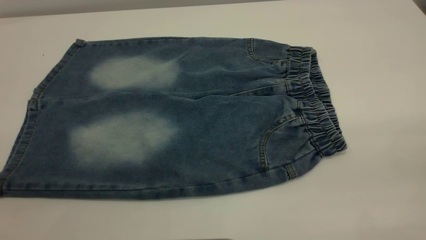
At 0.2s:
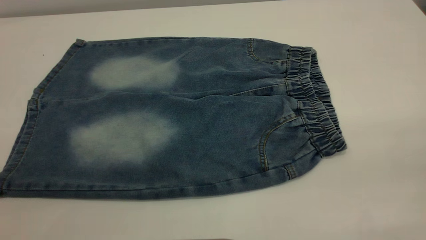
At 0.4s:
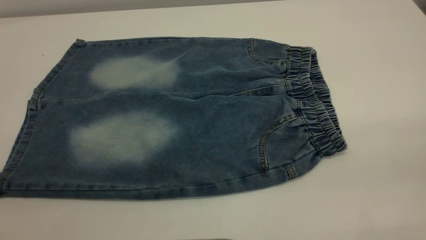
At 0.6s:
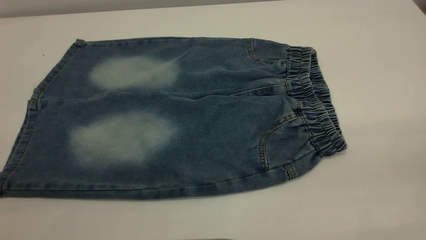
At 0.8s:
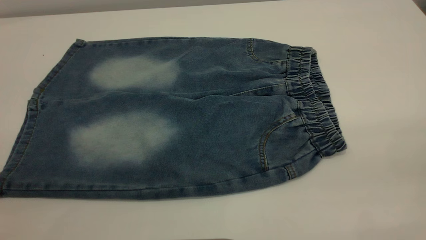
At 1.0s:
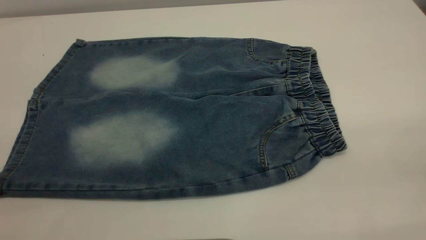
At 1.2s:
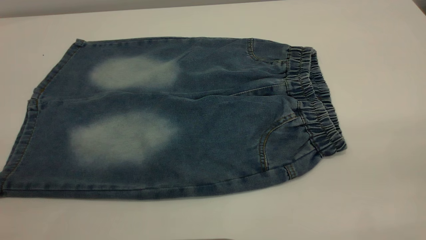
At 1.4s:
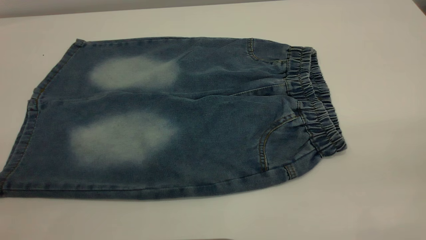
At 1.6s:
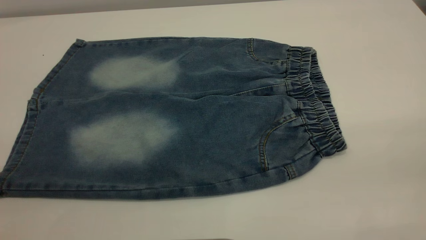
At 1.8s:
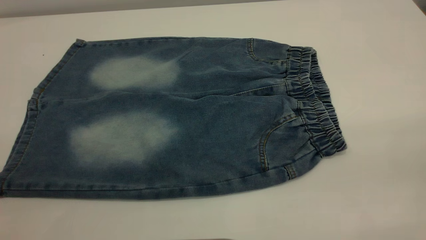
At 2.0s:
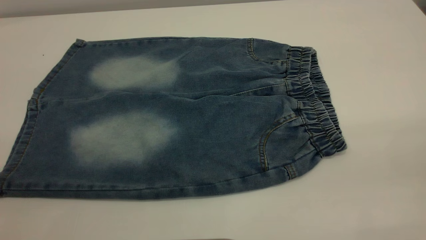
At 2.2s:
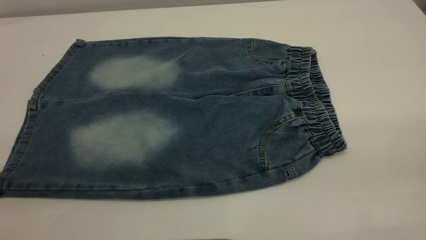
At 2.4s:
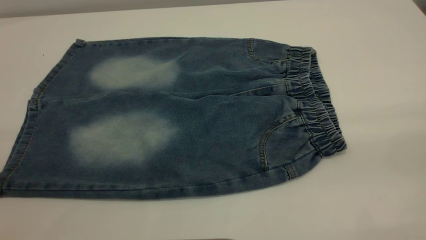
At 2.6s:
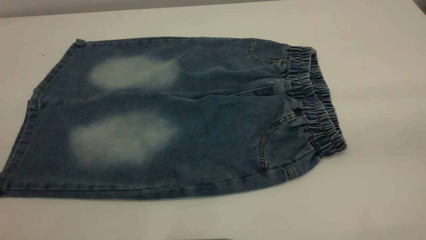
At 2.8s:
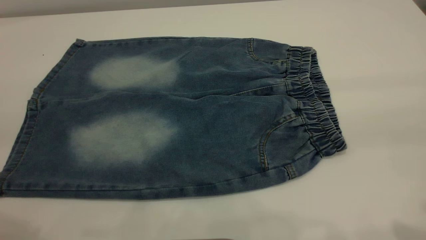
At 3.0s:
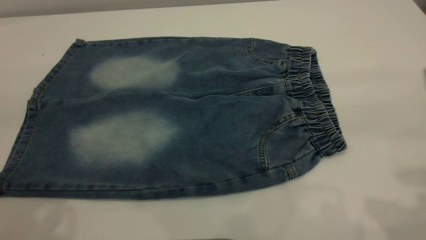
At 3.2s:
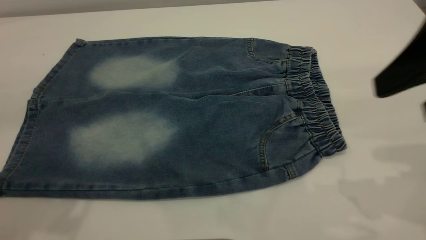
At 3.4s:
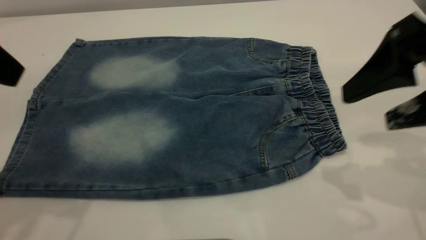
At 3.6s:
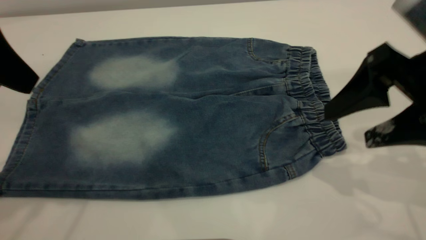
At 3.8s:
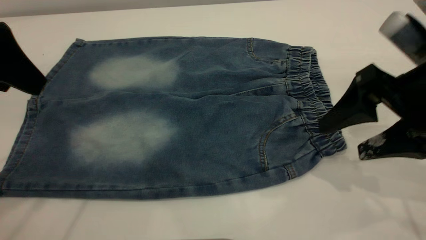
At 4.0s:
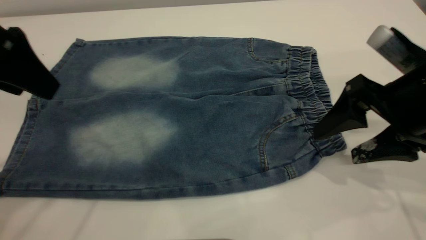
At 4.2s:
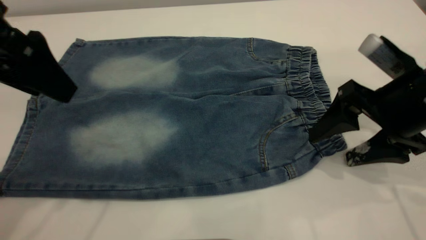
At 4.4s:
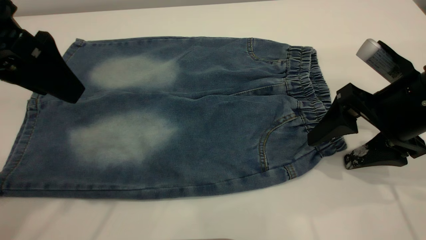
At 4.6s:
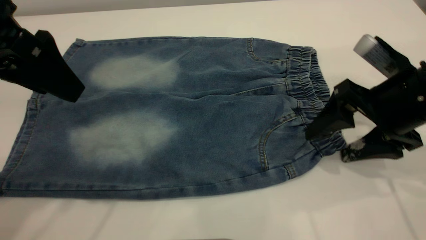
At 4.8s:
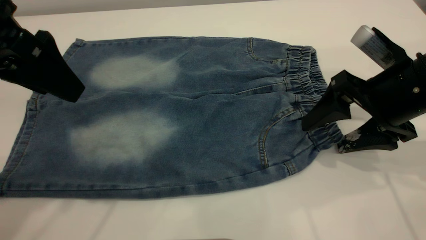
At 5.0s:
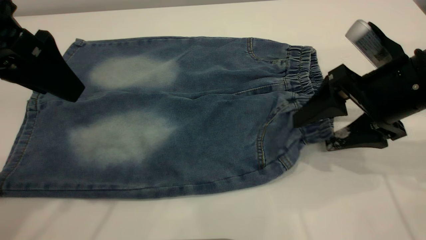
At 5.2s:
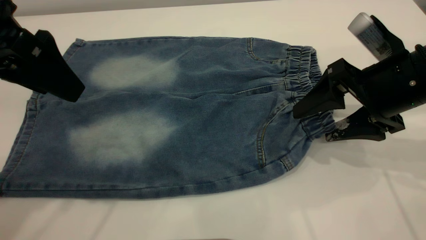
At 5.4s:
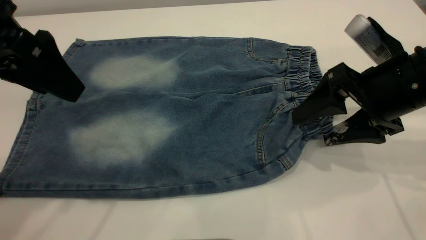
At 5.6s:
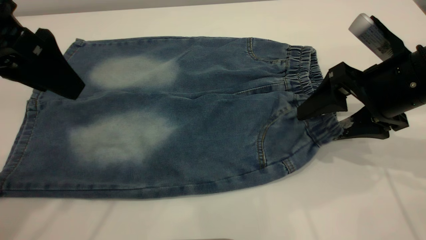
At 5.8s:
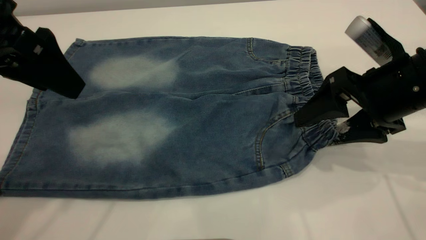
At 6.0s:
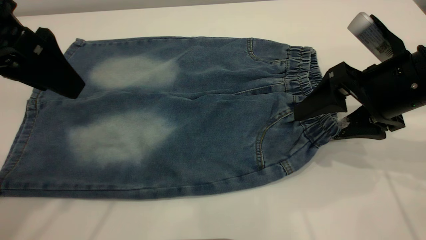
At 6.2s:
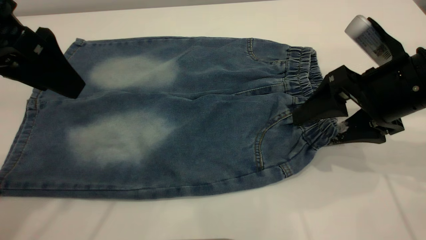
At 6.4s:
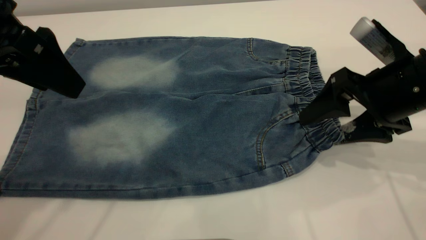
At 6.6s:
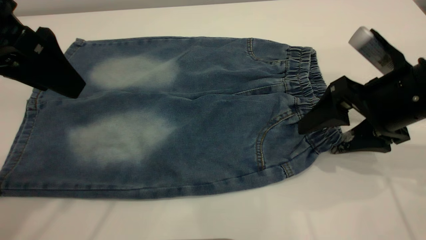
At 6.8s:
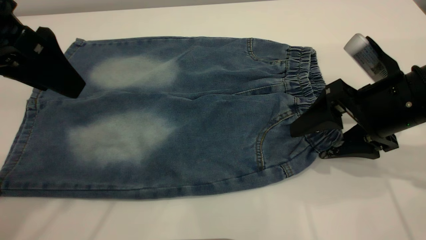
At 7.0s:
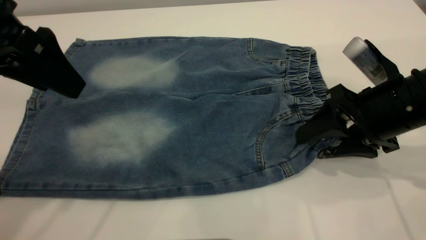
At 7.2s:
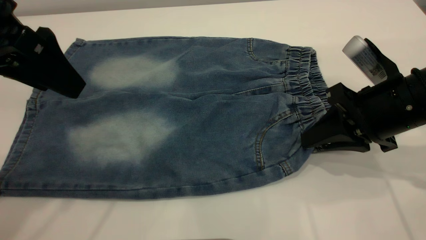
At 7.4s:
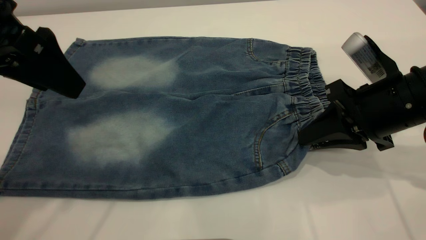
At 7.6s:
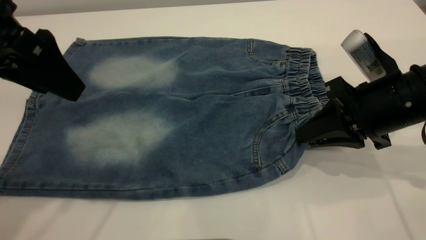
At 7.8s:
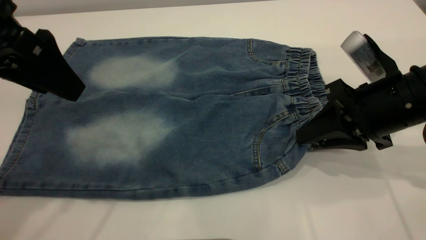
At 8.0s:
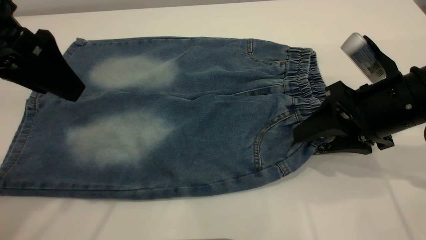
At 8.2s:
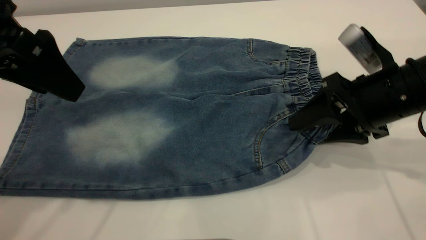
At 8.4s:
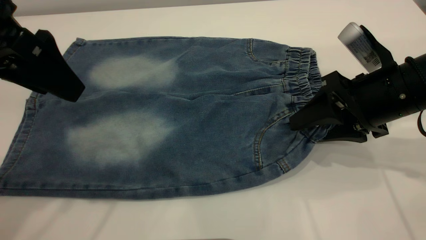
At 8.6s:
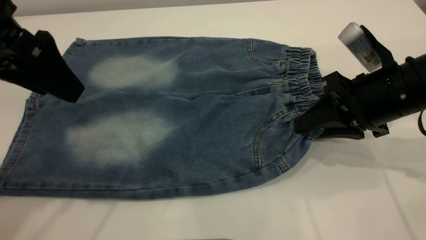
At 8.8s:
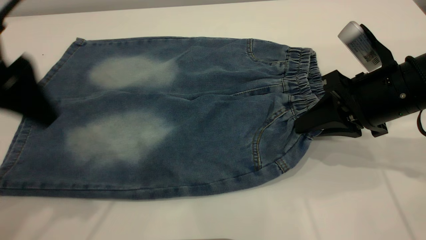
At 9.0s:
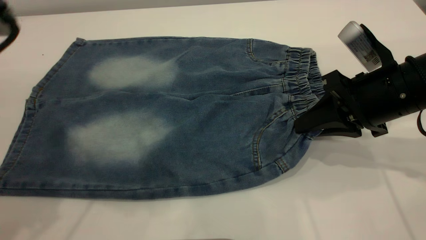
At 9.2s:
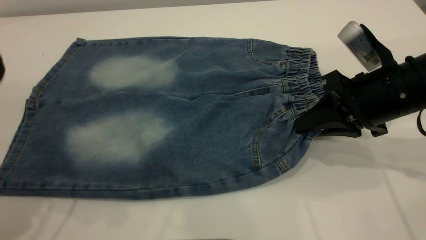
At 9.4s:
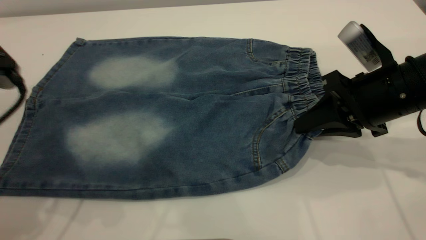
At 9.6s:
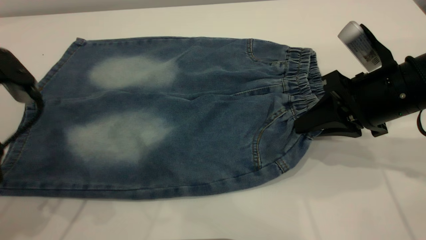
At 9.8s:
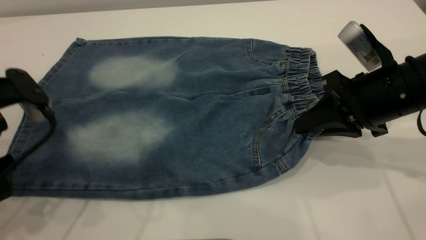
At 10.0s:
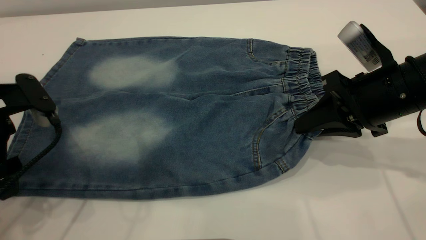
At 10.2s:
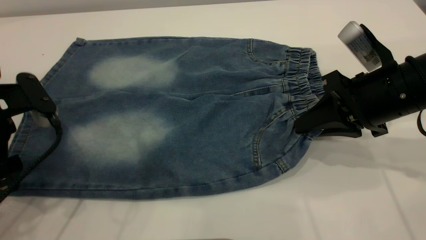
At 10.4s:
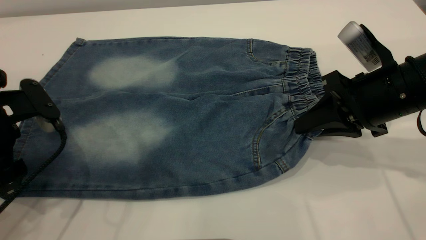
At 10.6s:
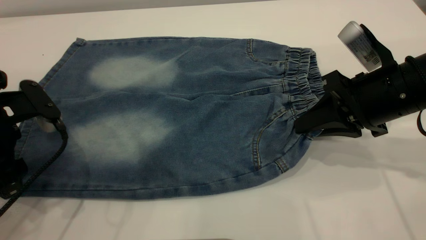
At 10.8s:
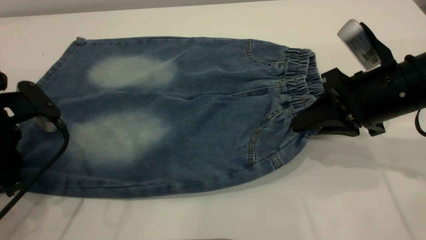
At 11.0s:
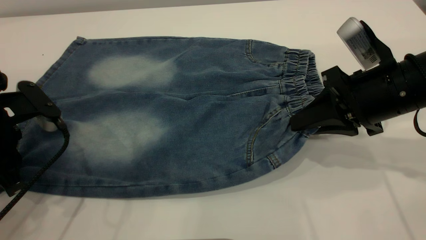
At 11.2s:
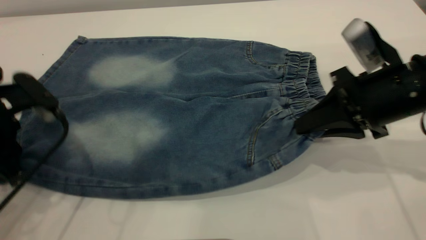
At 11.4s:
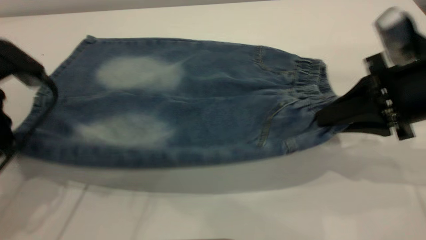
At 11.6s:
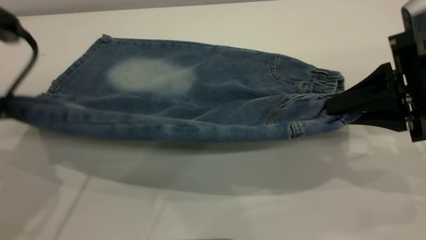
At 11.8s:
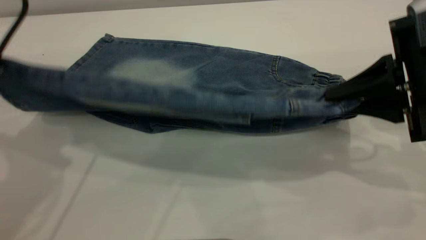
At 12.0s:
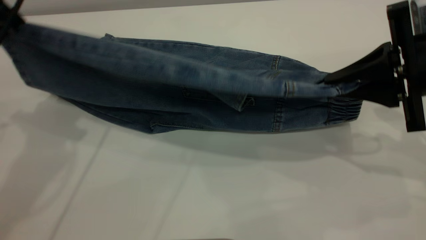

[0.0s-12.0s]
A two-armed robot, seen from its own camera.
0.0s to 1.6s: Both grippers stay put.
3.0s to 4.4s: The left gripper moves downward and forward, about 10 cm, while the right gripper goes roughly 20 cm downward and forward.
4.4s to 6.0s: The grippers stay close to where they were, moving slightly.
6.0s to 7.6s: The right gripper closes its fingers.
7.6s to 9.0s: The right gripper opens and closes again.
9.0s to 10.4s: The left gripper goes about 15 cm downward.
10.4s to 12.0s: The left gripper moves upward and forward, some 15 cm, and closes, while the right gripper moves upward, about 5 cm.

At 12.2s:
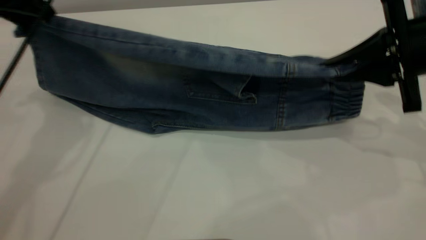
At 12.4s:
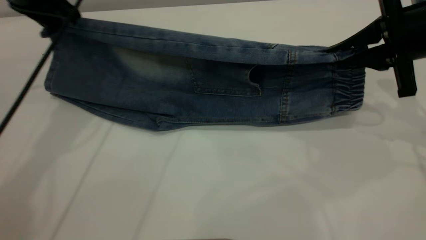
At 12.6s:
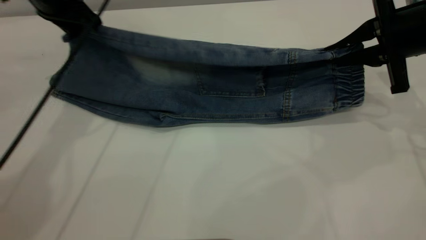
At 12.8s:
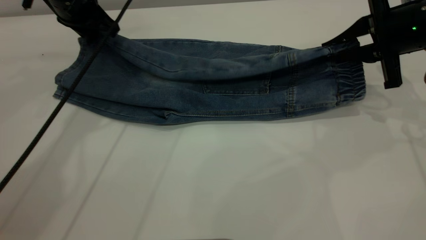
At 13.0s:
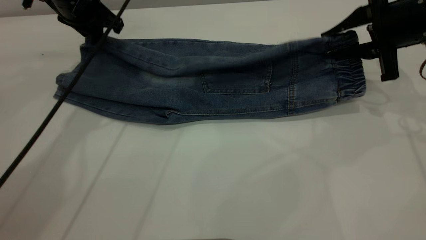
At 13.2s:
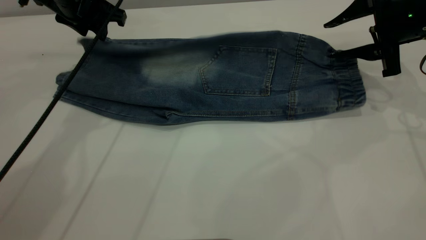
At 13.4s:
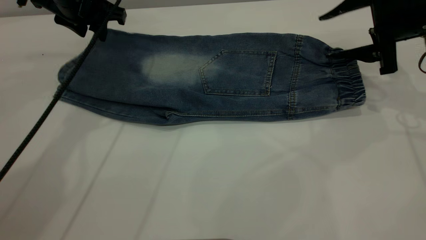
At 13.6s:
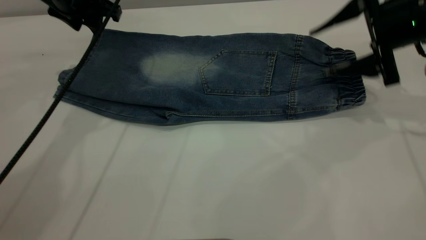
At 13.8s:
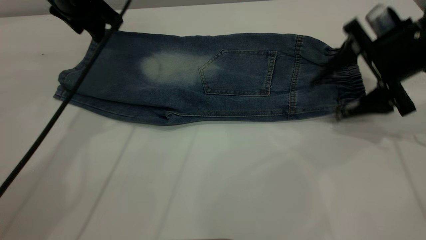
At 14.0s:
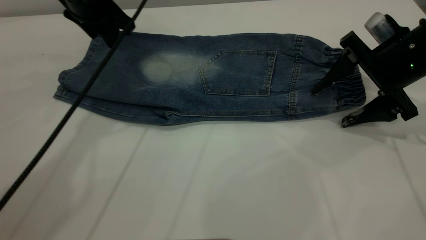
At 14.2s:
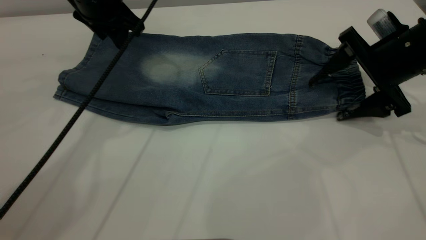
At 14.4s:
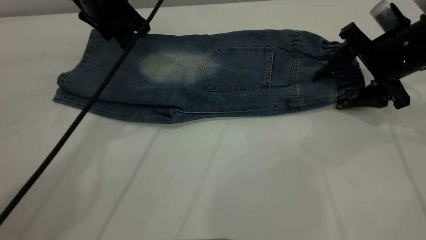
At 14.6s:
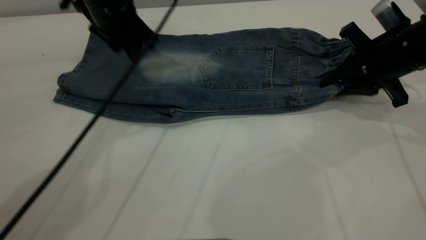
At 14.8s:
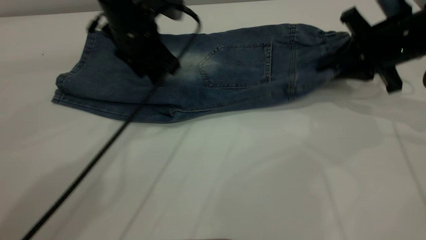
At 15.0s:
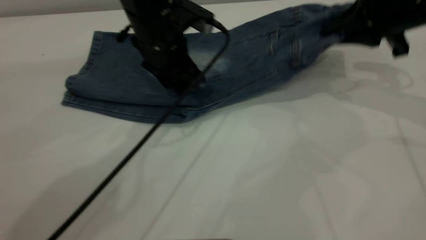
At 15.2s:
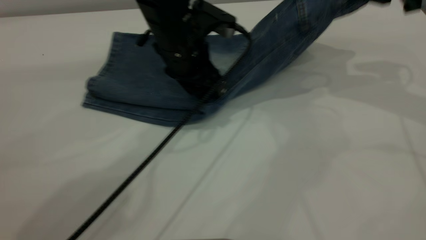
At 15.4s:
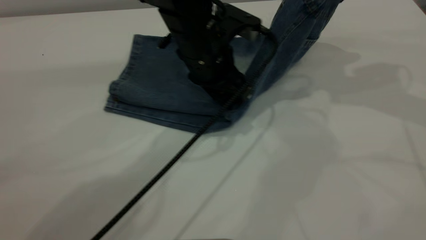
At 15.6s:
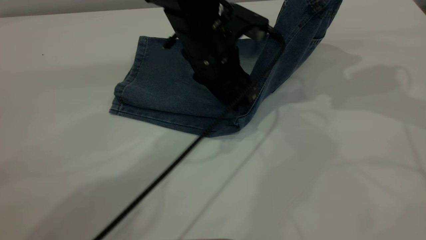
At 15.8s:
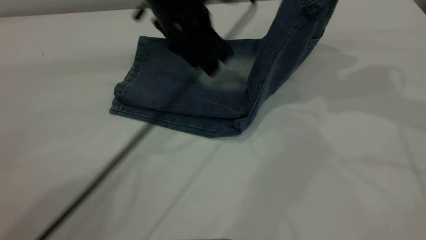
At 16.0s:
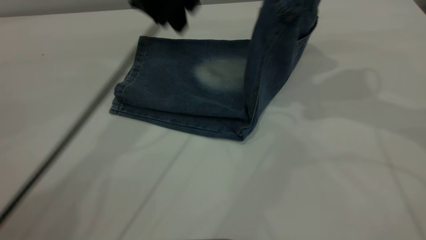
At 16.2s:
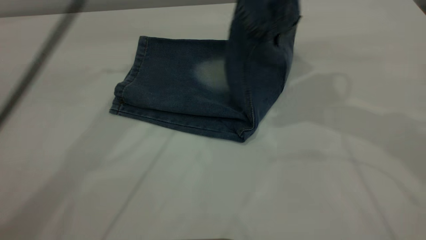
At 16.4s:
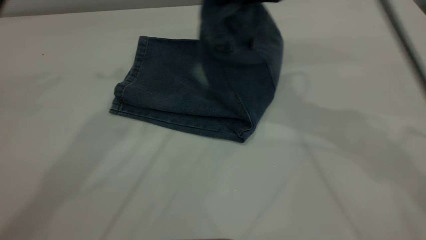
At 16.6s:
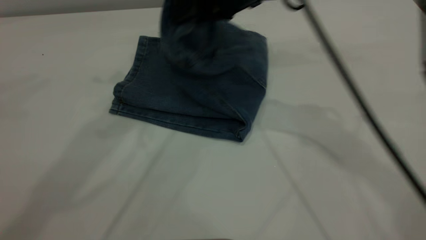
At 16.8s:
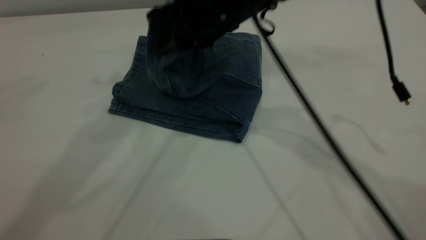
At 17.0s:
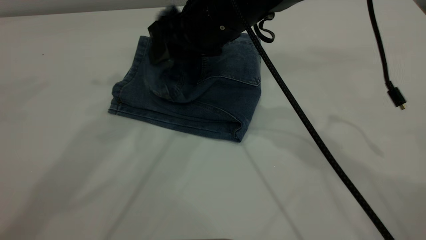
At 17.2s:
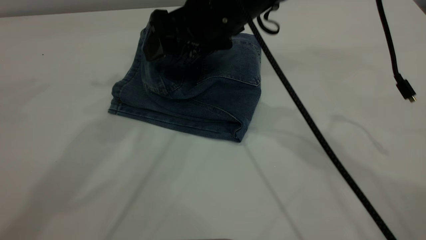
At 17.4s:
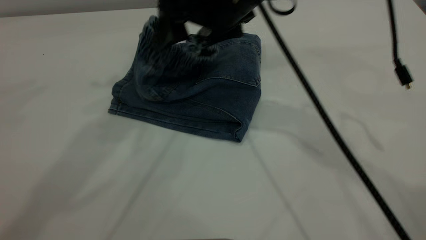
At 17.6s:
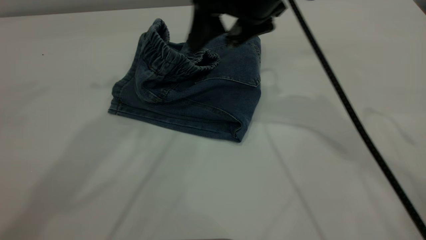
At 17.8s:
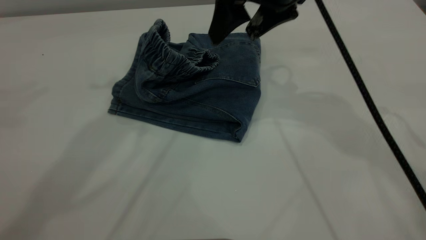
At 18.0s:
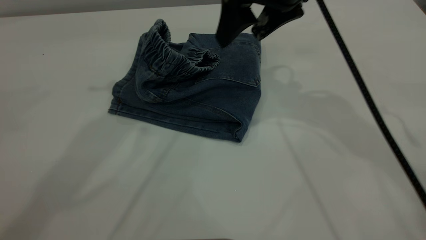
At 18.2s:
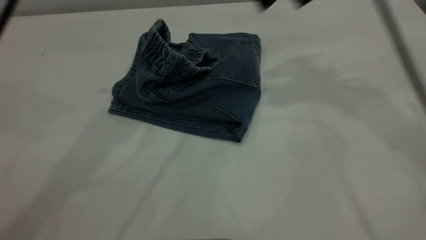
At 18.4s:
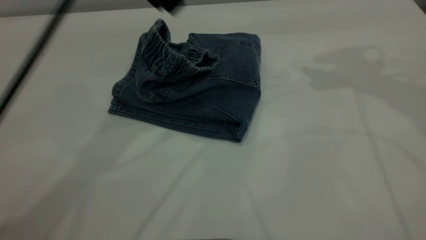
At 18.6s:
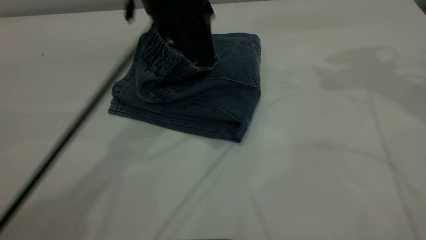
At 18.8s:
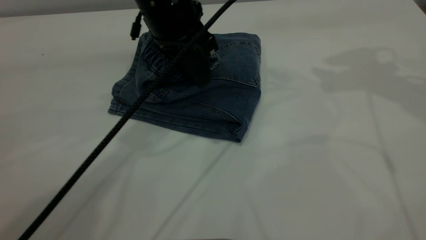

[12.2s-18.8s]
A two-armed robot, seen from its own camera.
Step, 14.0s to 18.4s: Fold your pants from right to left.
12.2s to 13.8s: The left gripper moves forward and to the right, about 10 cm, and opens up, while the right gripper opens.
13.8s to 15.4s: The right gripper is displaced upward by some 15 cm, and closes up, while the left gripper goes about 20 cm to the right and backward.
15.4s to 17.2s: The right gripper heads to the left, covering roughly 25 cm, and opens its fingers; the left gripper shifts approximately 30 cm upward and to the left.
17.2s to 18.8s: The right gripper travels to the right and upward by approximately 25 cm, while the left gripper heads downward, covering about 20 cm.
